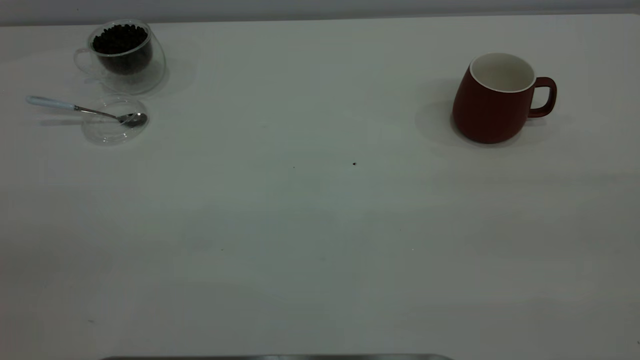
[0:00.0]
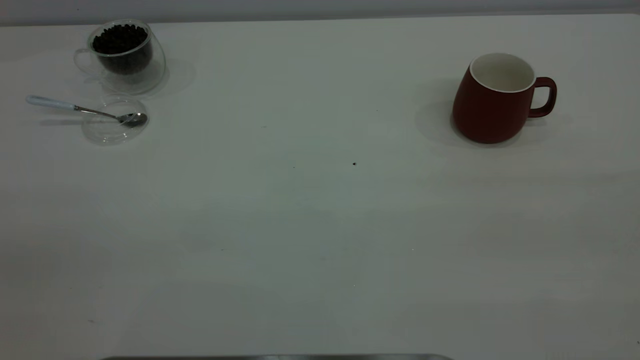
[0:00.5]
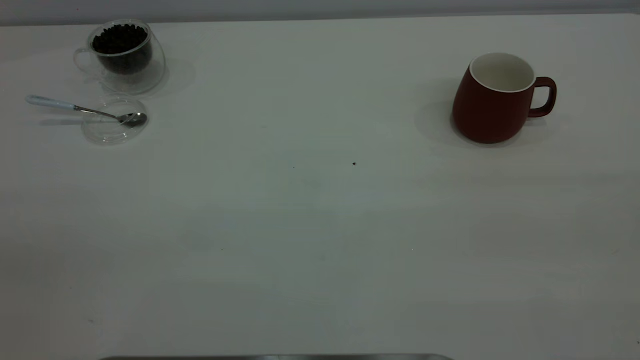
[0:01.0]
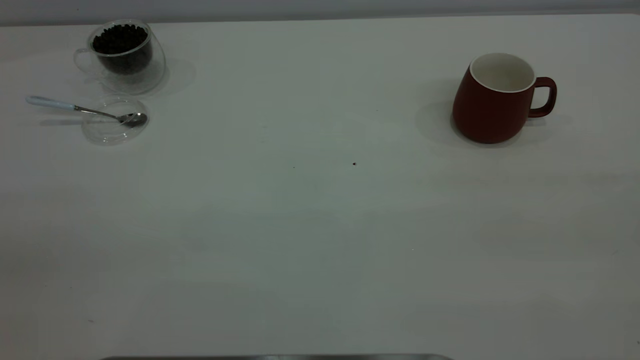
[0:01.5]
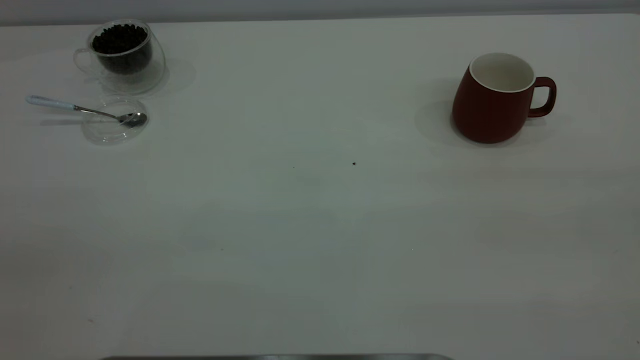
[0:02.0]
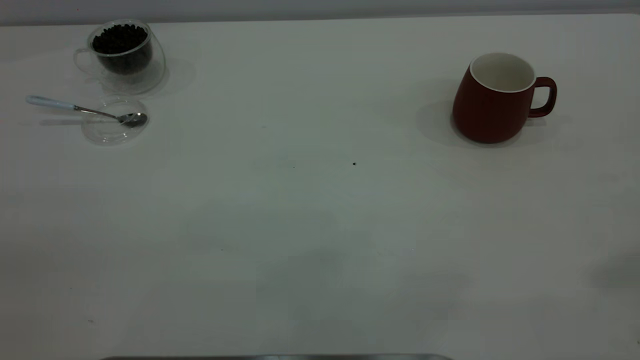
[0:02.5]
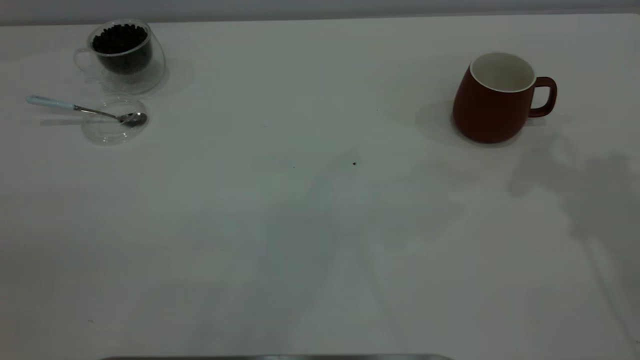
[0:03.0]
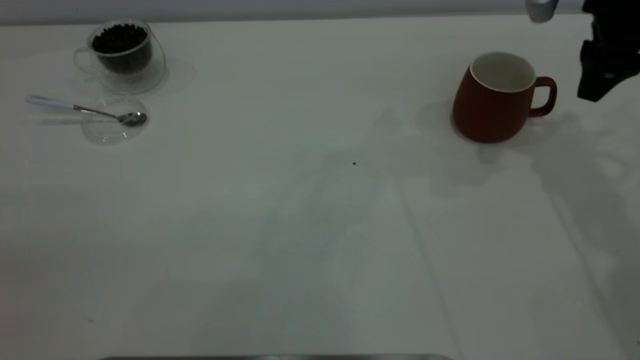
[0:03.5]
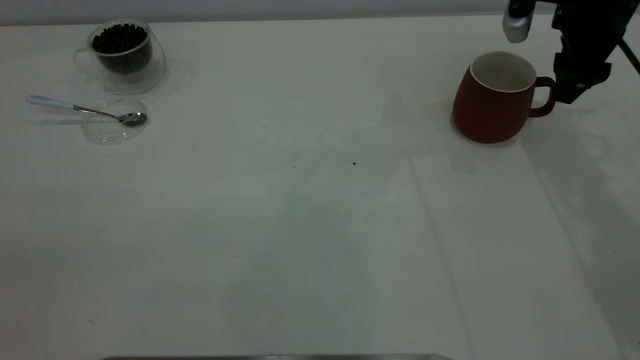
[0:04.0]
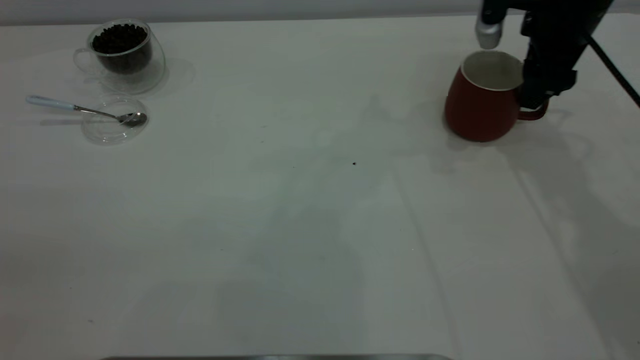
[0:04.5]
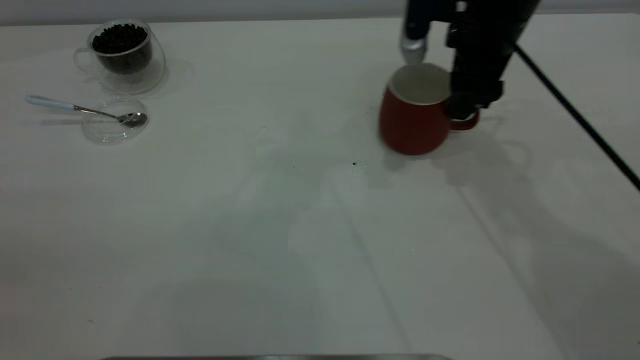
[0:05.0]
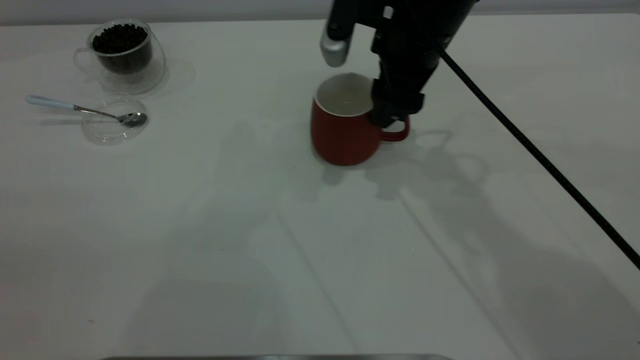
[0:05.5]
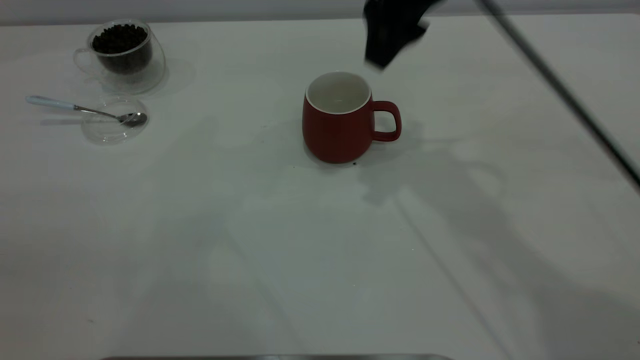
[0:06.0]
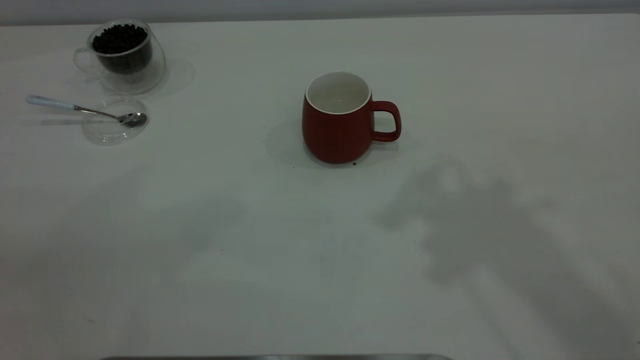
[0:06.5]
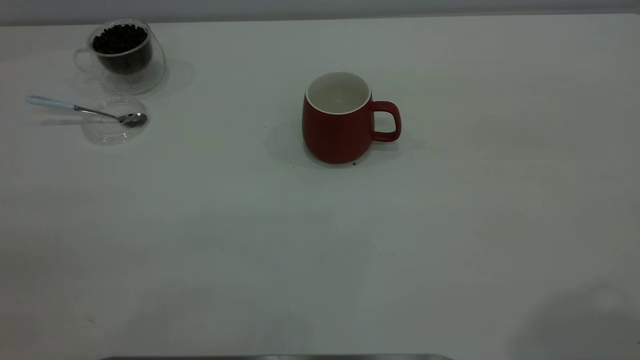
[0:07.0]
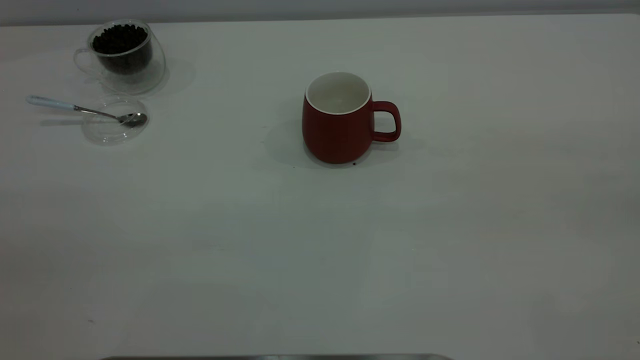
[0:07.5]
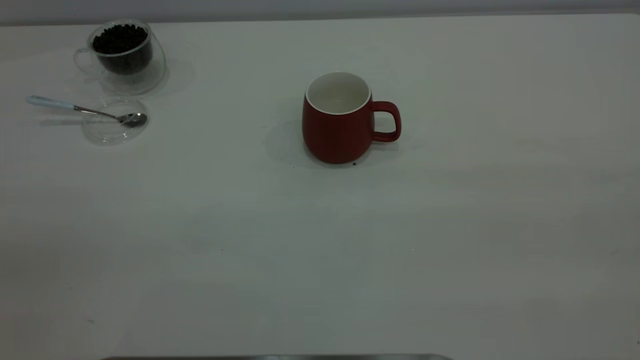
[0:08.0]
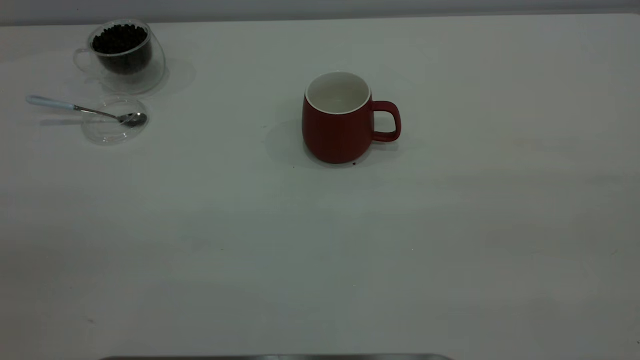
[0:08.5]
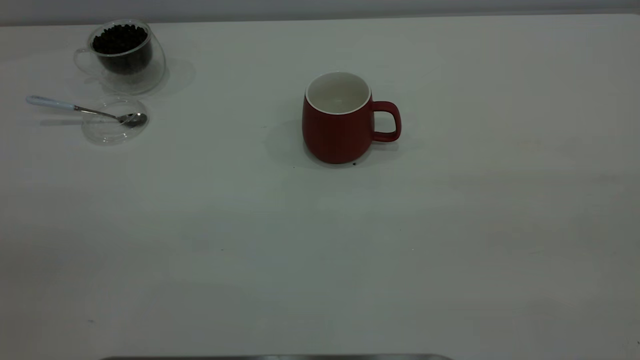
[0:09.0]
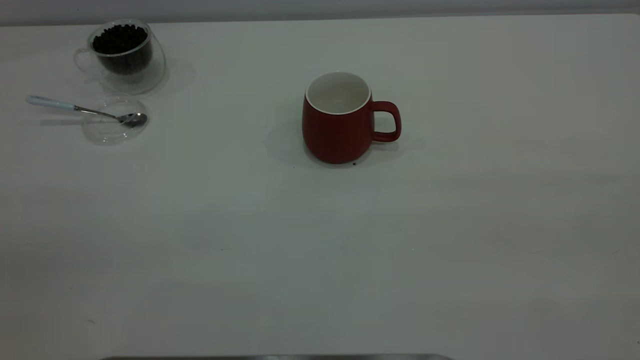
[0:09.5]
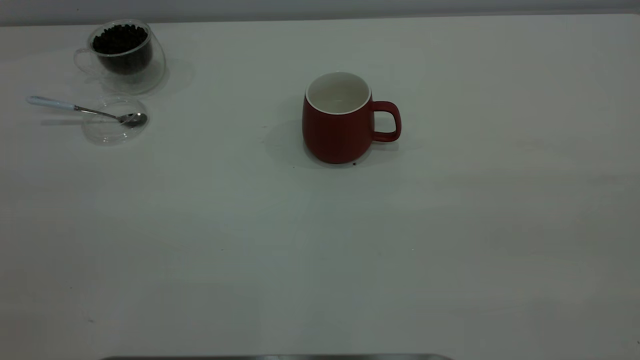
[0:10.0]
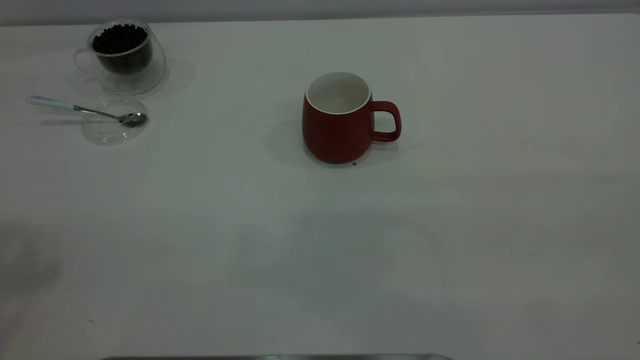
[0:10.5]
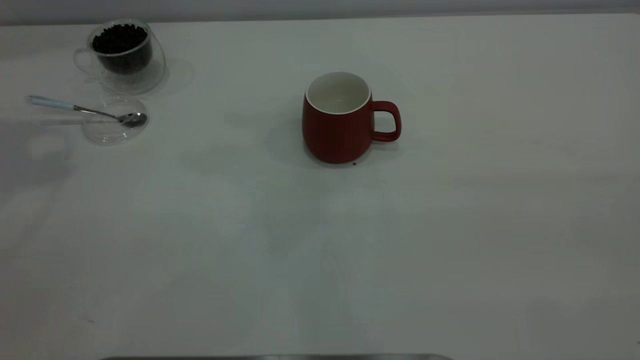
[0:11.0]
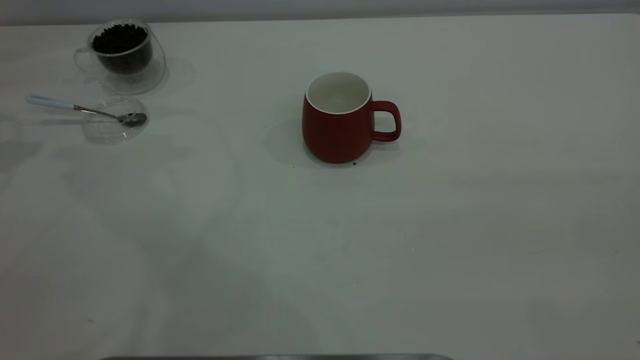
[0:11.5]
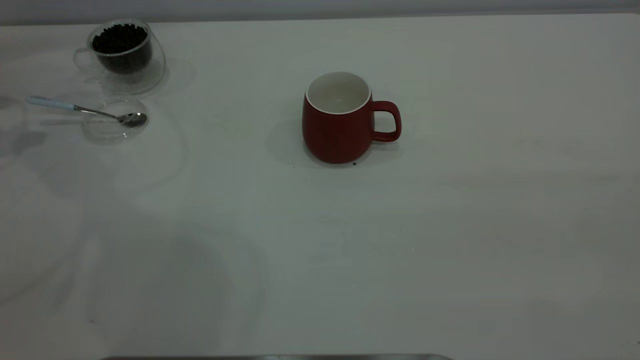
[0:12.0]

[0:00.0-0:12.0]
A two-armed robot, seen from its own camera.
Task of the whole recording: the right gripper place the red cup in the center of the table, the left gripper take the blue spoon from the cup lid and scoop out the coffee beans from the coffee cup and put them into the red cup, the left gripper put the spoon back into the cup lid.
Step, 0:00.0 to 0:05.5: Move the cup to the center of view.
0:02.0 to 0:04.0: The right gripper heads forward and downward, covering some 50 cm.
0:04.0 to 0:06.0: The right gripper goes roughly 20 cm to the left and upward.
0:06.0 to 0:08.0: The right gripper moves backward and to the right, some 40 cm.

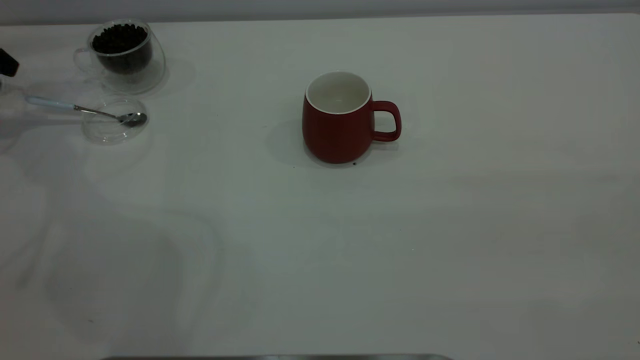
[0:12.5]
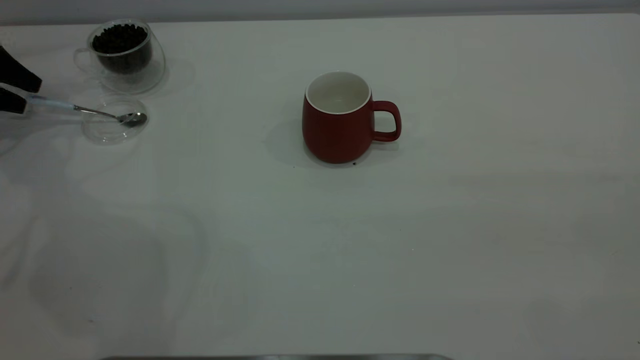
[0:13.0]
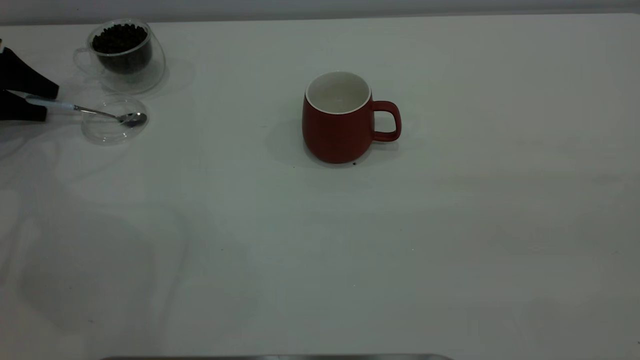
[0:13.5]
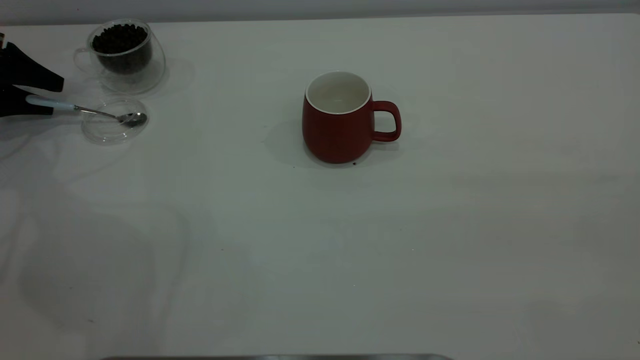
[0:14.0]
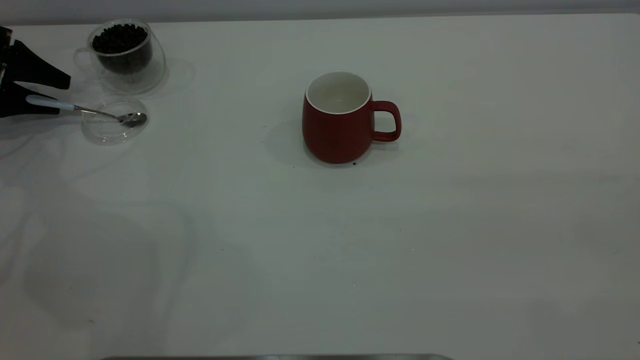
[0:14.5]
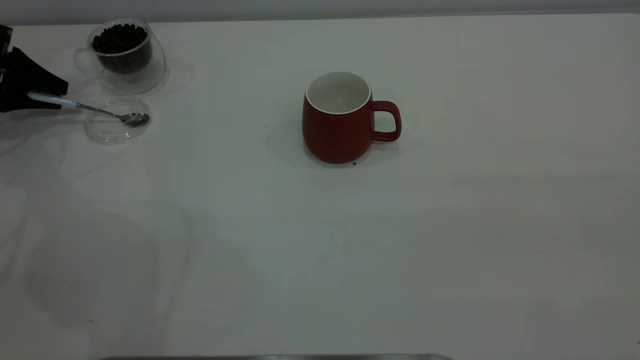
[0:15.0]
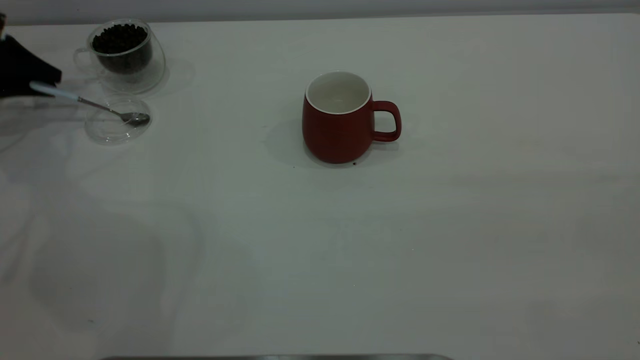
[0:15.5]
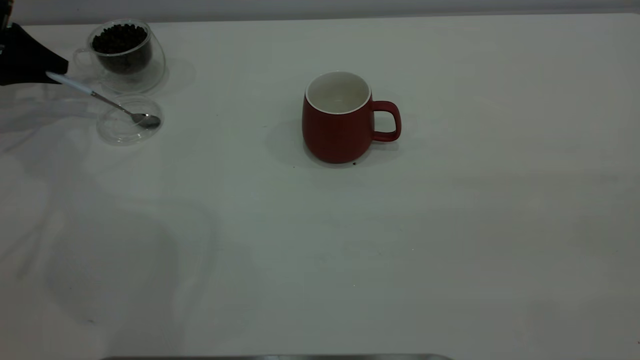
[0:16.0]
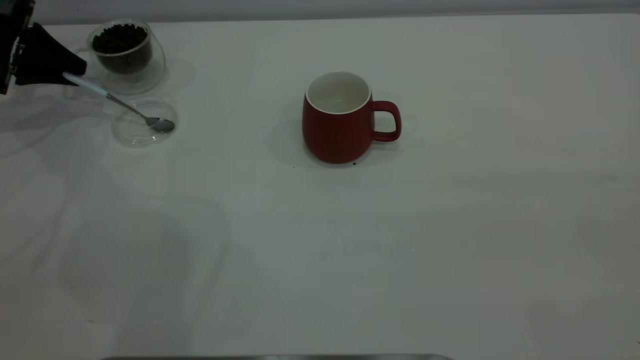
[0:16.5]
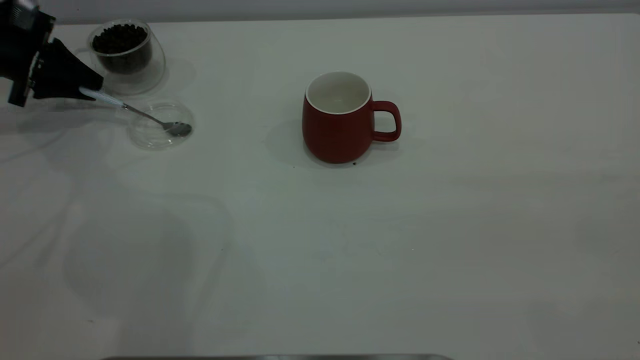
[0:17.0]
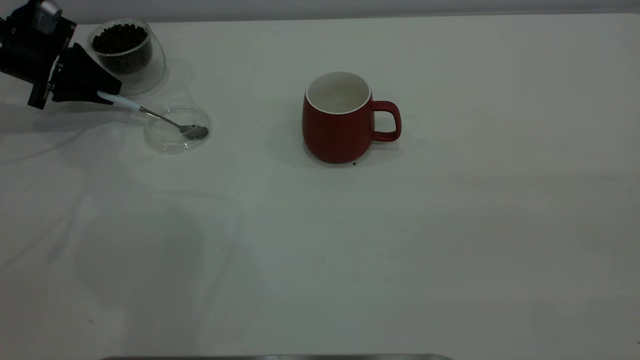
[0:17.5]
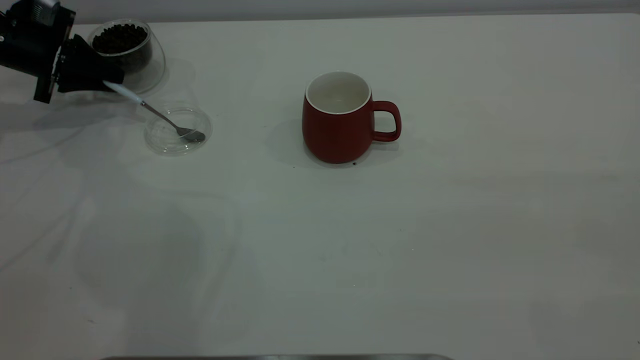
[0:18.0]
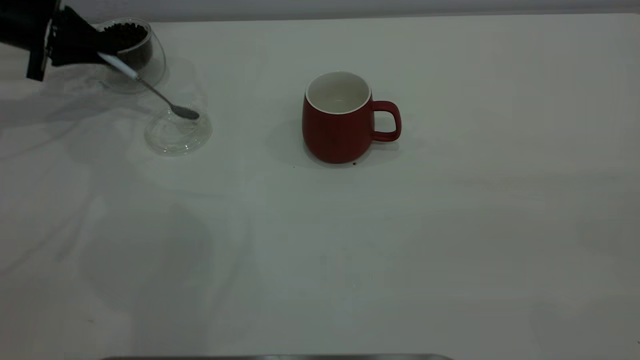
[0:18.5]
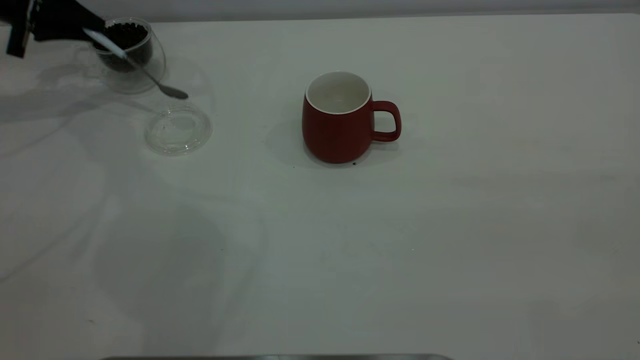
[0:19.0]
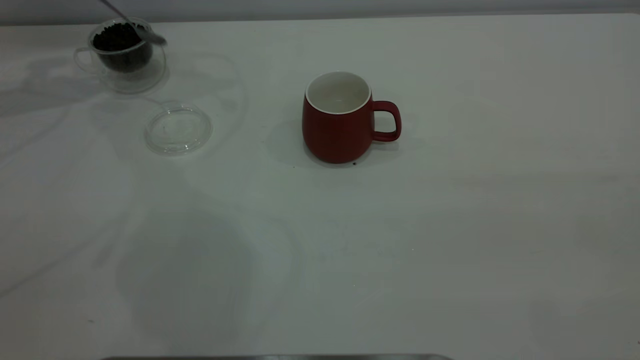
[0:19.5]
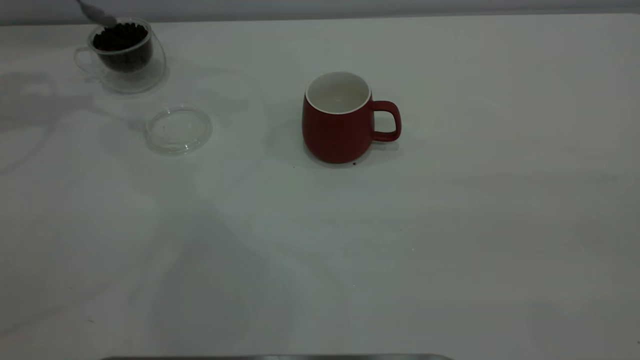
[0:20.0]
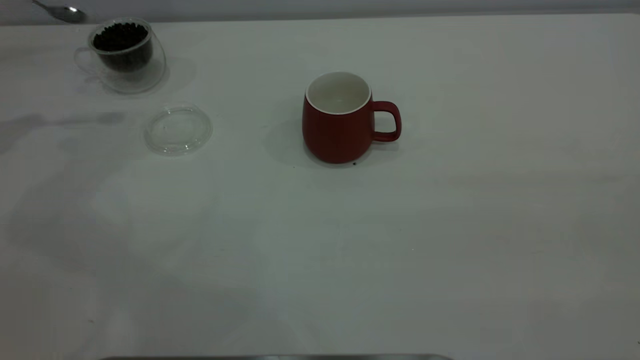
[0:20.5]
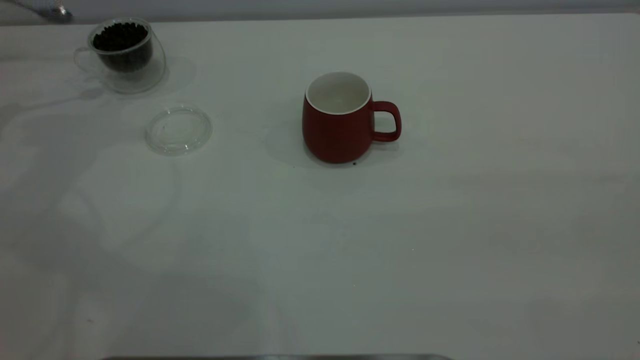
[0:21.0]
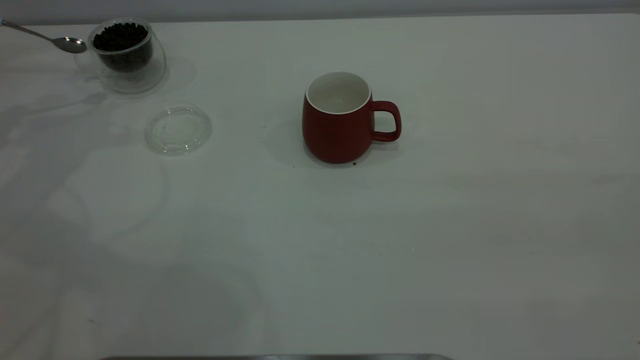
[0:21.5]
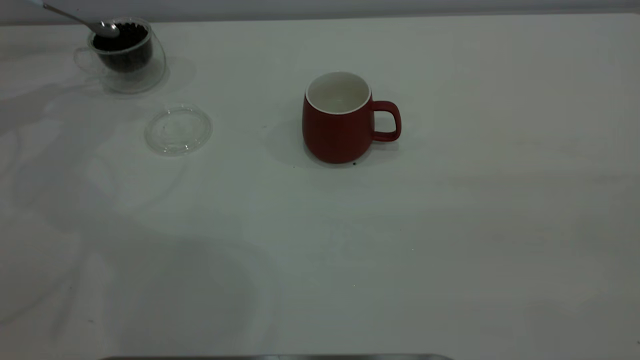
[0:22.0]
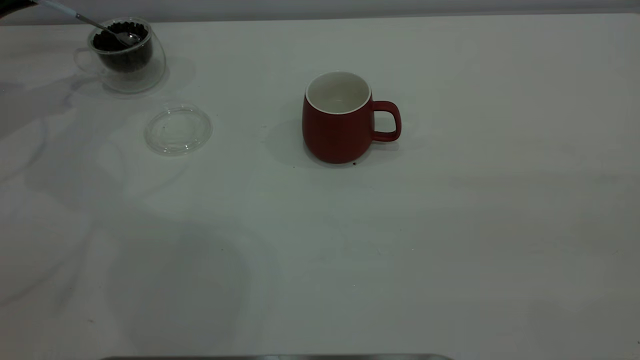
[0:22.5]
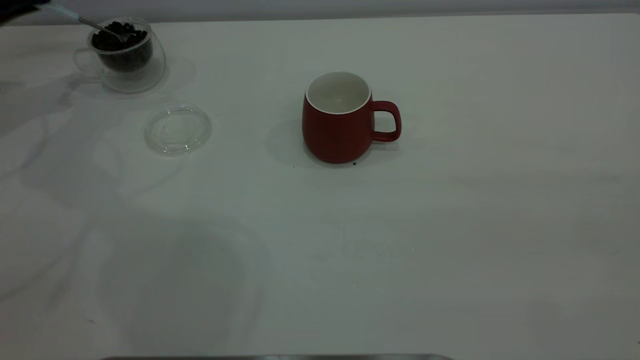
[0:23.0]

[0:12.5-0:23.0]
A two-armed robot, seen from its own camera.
Task of the whole recording: the right gripper place the red cup in the center of the table, the left gripper take the blue spoon from the cup lid and scoop out the coffee beans from the coffee cup and put them into the red cup, the left gripper put the spoon back into the cup lid.
Step, 0:12.5 to 0:19.0: Pick up the spoon.
0:12.5 to 0:14.5: The left gripper goes roughly 5 cm downward.
0:14.5 to 0:16.5: The left gripper changes place by about 5 cm, and closes.
0:16.5 to 0:19.0: The left gripper shifts by approximately 5 cm.
0:19.0 to 0:21.0: The left gripper heads backward and to the left, covering approximately 15 cm.
